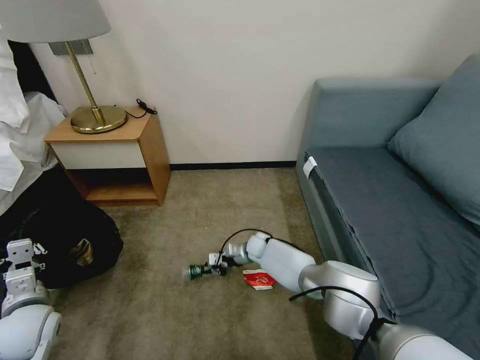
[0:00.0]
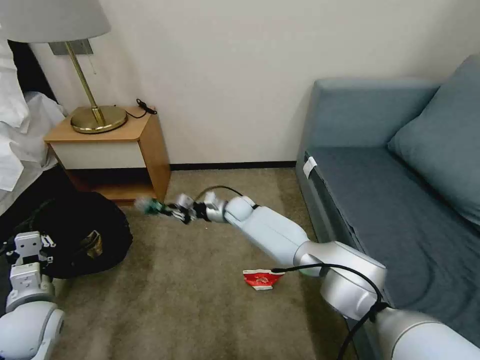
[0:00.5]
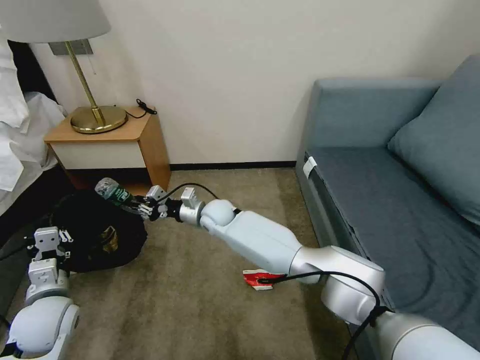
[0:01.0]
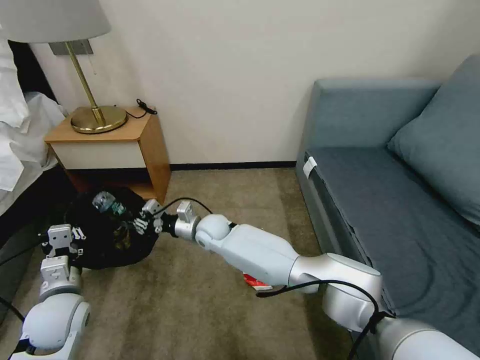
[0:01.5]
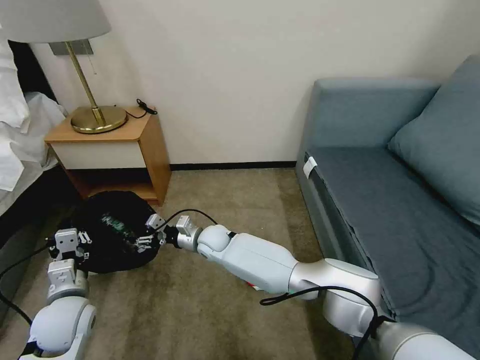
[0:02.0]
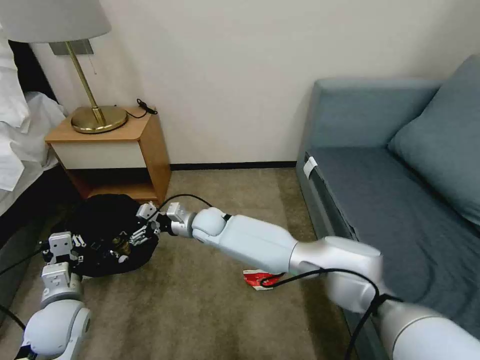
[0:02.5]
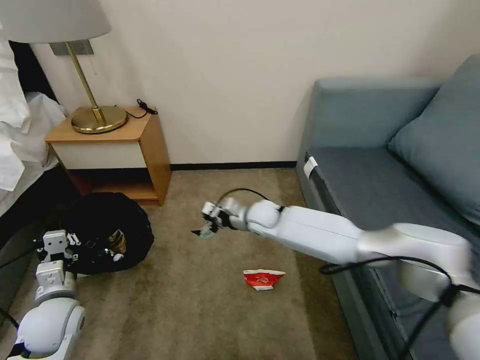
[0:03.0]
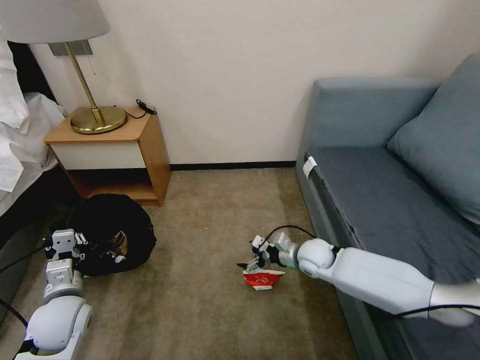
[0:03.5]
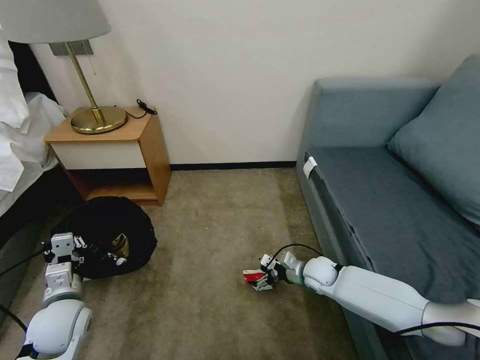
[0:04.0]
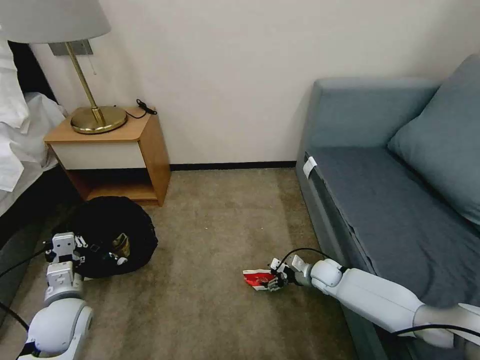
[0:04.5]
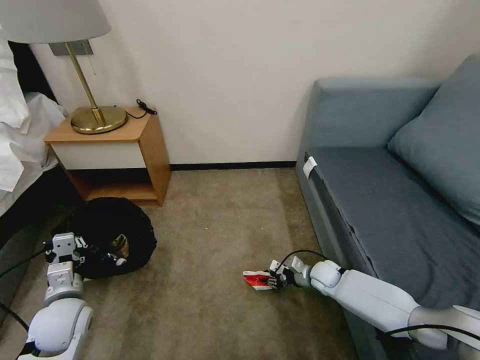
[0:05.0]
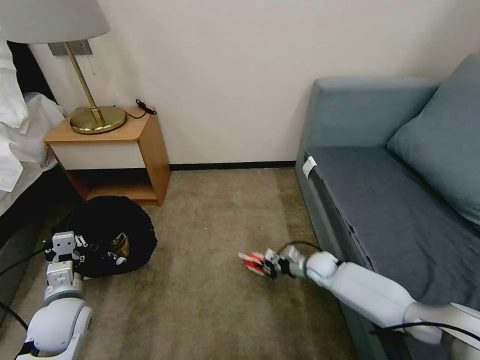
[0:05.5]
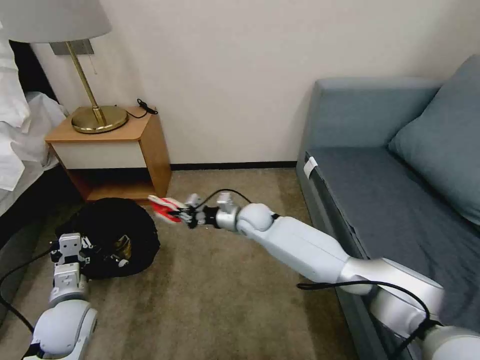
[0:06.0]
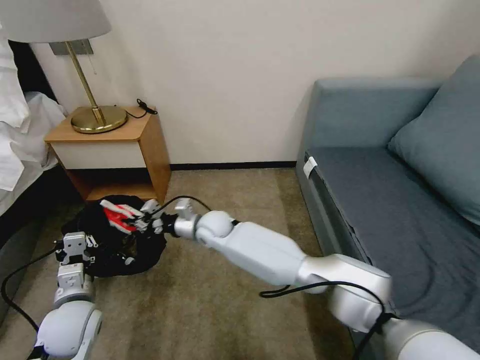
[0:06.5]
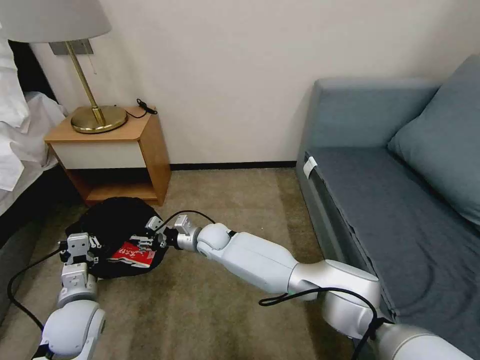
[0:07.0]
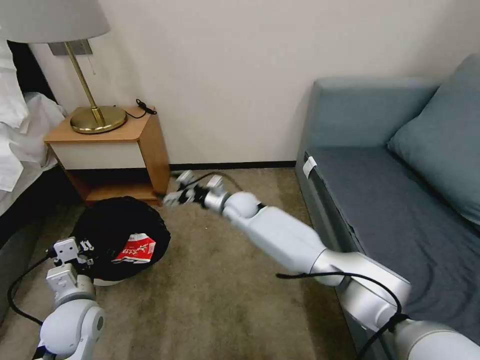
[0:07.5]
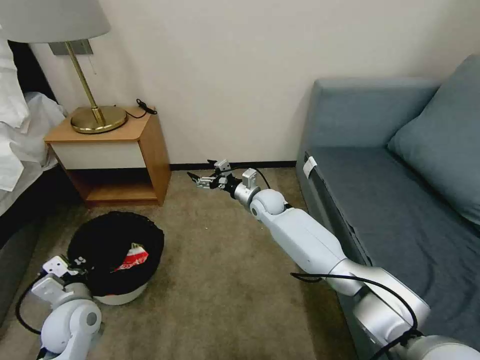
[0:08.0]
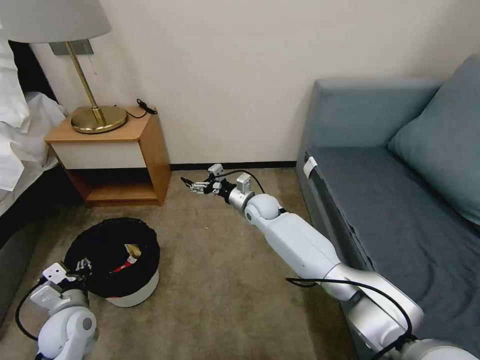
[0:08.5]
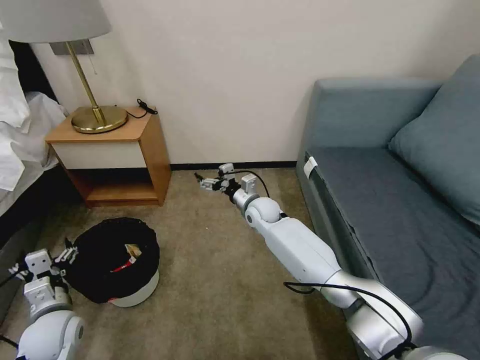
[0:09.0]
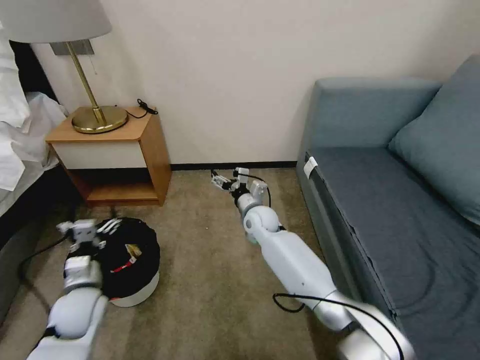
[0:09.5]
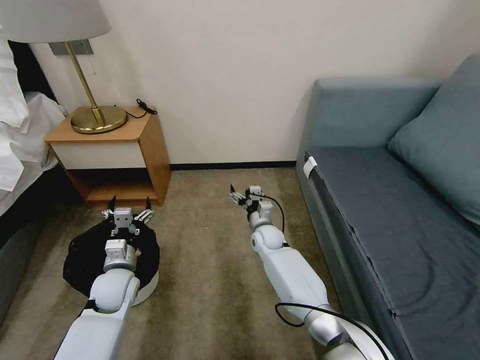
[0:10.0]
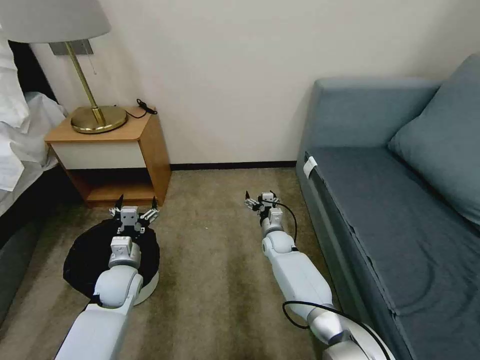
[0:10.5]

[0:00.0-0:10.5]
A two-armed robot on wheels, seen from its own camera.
Task of the whole recording: Pick up the trash bin, then pick up the garbage on the floor and place it into the trash bin.
0:00.0 to 0:02.0: The right gripper moves to the left, upward and backward, some 20 cm, and opens up; the left gripper goes some 5 cm to the right.
0:02.0 to 0:04.0: The right gripper moves to the right, approximately 30 cm, and opens up.
0:04.0 to 0:06.5: The right gripper moves to the left, about 30 cm, and closes its fingers.
0:06.5 to 0:08.5: The right gripper heads to the right and forward, covering about 15 cm, and opens its fingers. Meanwhile the left gripper moves downward, some 5 cm, and opens up.
0:08.5 to 0:10.5: The right gripper travels downward and to the right by roughly 15 cm; the left gripper travels forward and to the right by roughly 10 cm, and opens up.

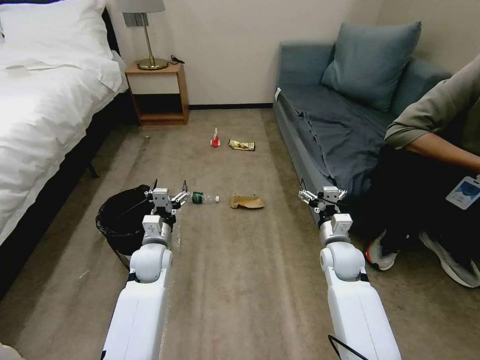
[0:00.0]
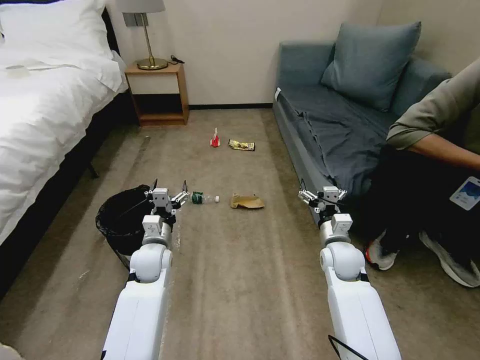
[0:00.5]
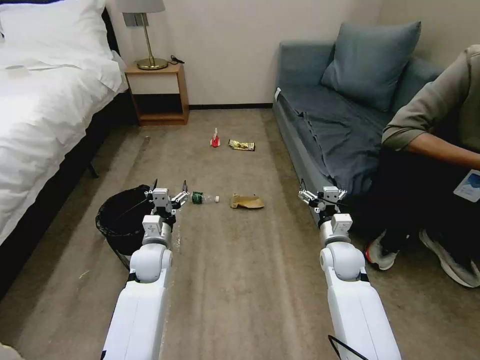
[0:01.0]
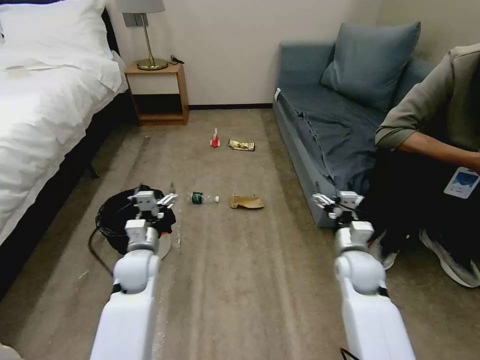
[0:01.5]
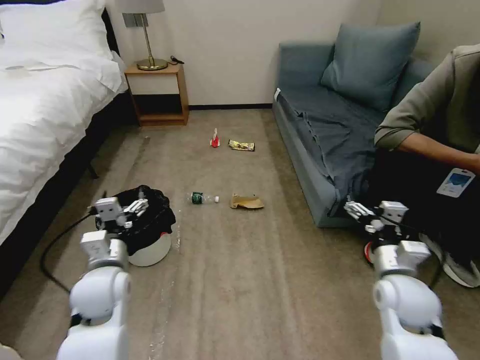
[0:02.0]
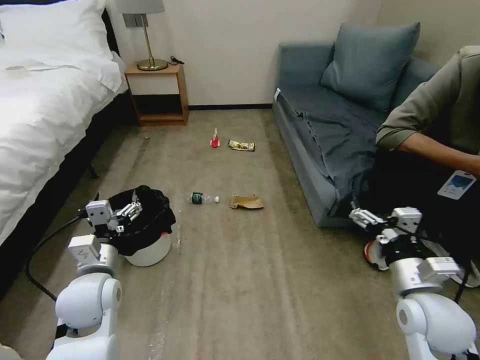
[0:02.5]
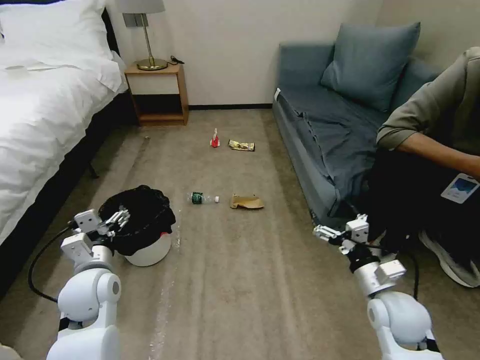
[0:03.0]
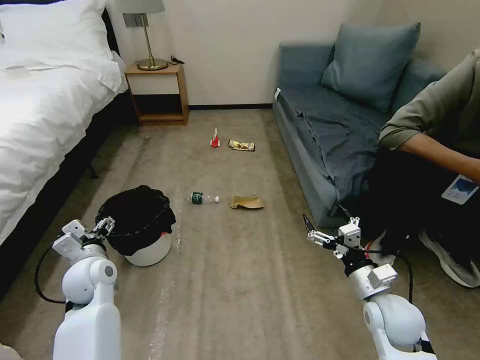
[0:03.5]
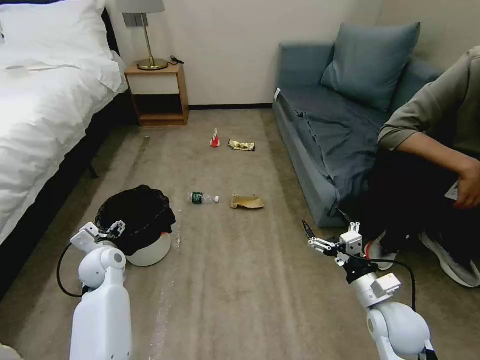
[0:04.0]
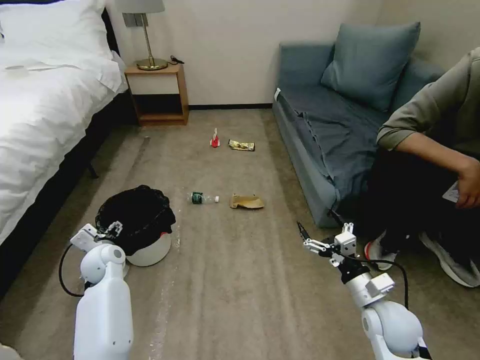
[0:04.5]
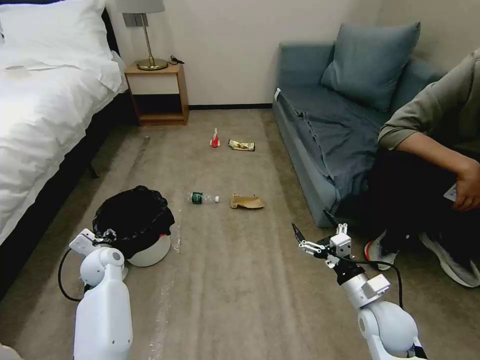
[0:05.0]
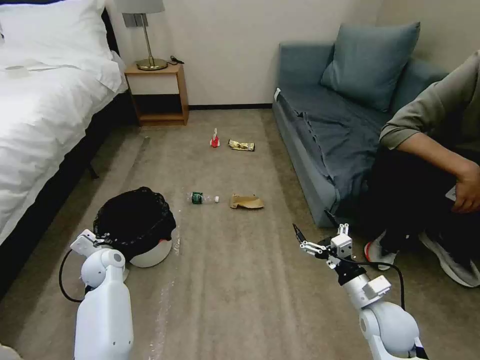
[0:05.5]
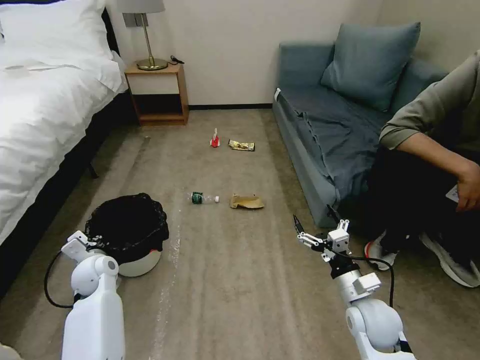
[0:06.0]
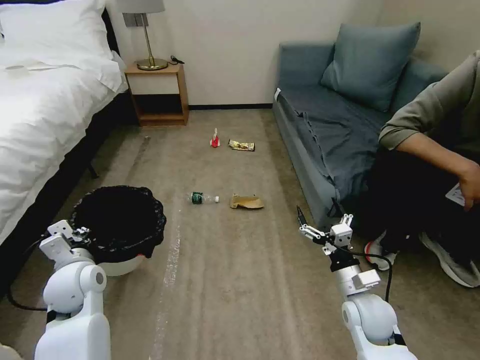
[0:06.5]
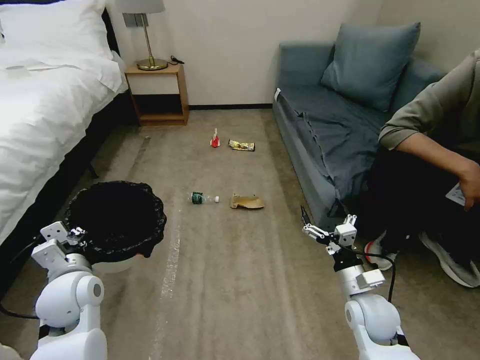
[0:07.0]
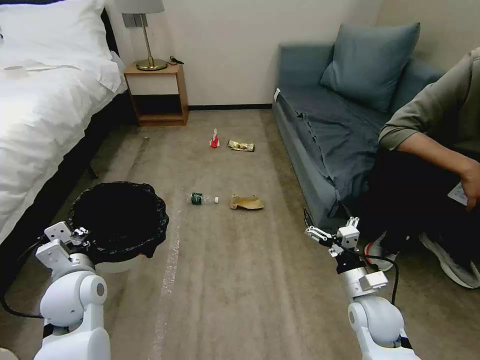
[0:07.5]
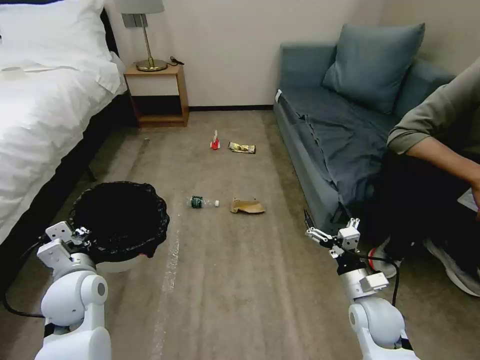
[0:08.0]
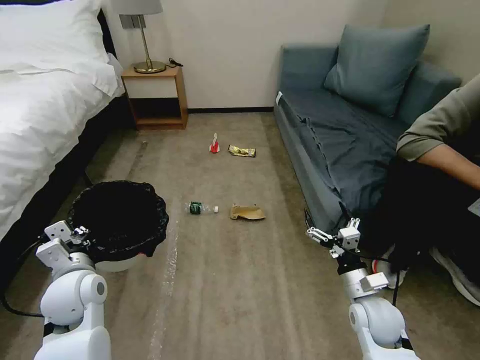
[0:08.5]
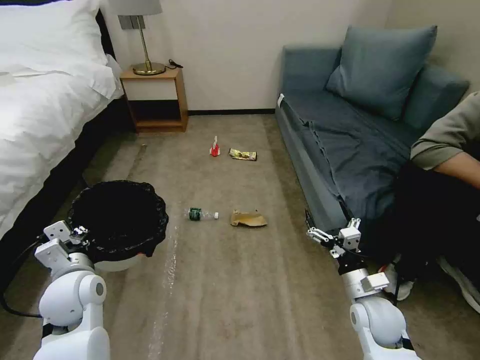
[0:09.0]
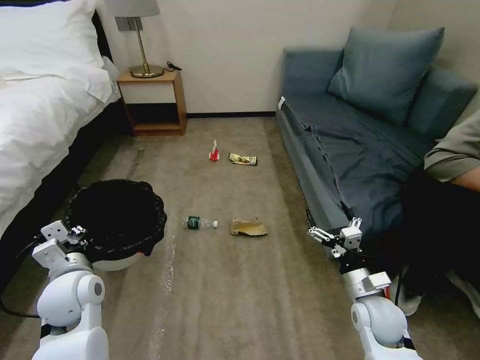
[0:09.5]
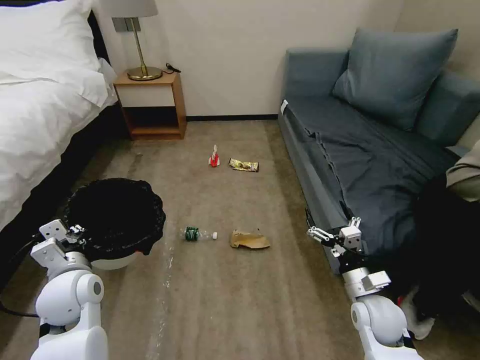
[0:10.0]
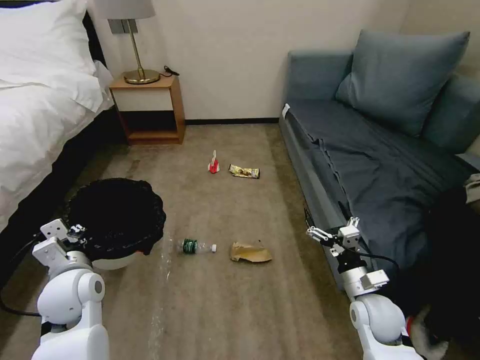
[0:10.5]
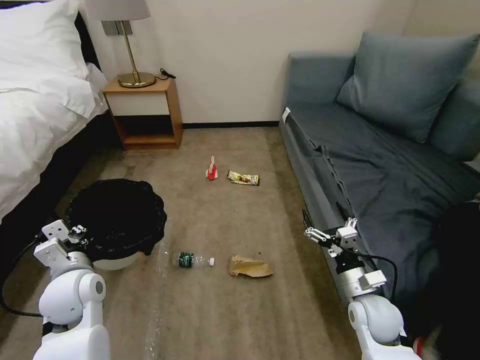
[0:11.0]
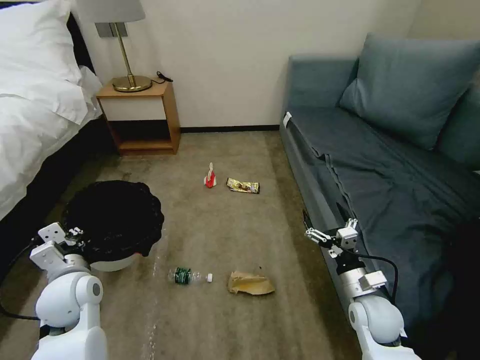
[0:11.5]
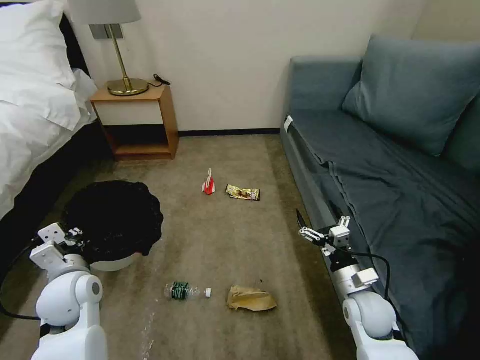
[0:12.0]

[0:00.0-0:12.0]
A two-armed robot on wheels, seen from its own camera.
Task of the whole recording: Pick up the trash bin, then pick up the garbage on the floor and place it into the trash bin.
0:02.0 to 0:04.0: The left gripper heads forward, downward and to the left, covering about 10 cm. Meanwhile the right gripper goes roughly 5 cm downward.
0:04.0 to 0:06.0: The left gripper closes its fingers.
0:06.0 to 0:08.0: The left gripper travels upward and backward by approximately 15 cm.

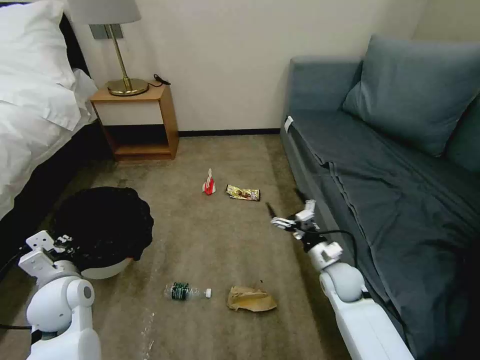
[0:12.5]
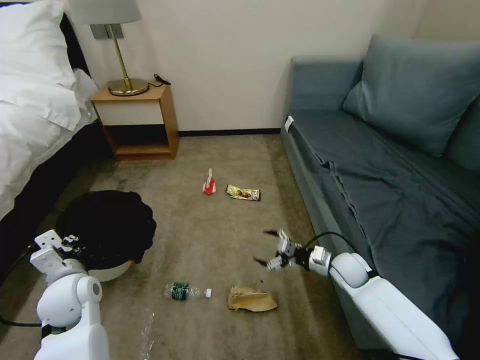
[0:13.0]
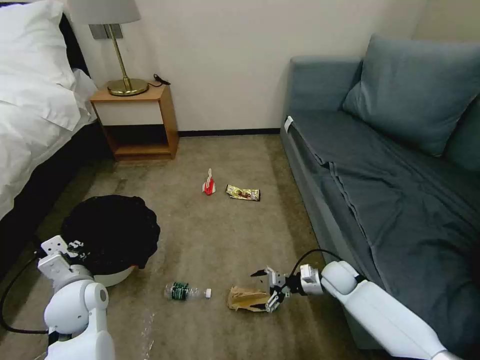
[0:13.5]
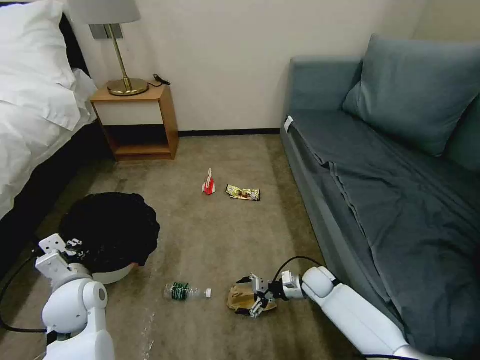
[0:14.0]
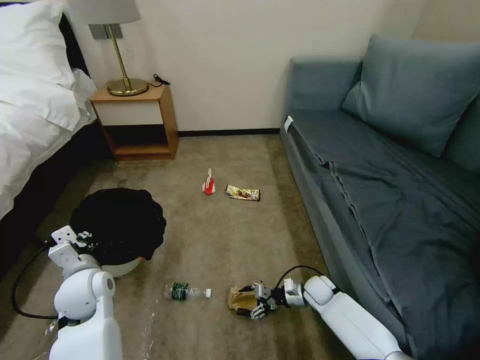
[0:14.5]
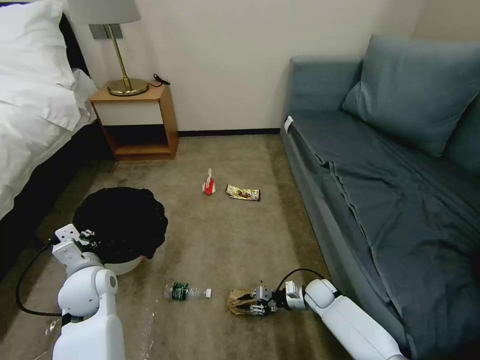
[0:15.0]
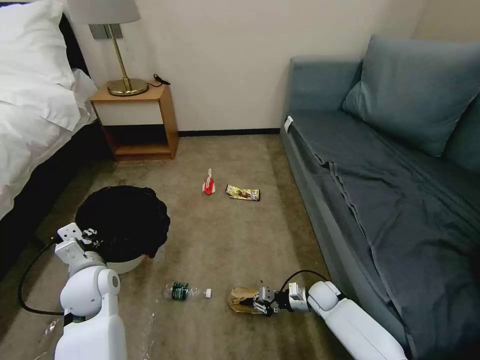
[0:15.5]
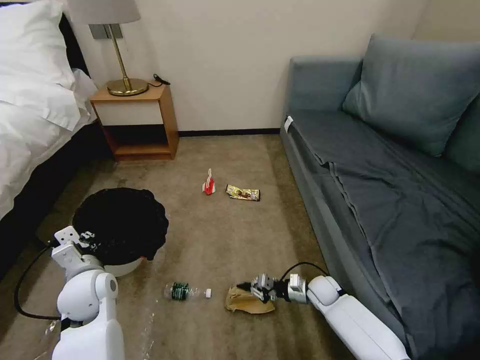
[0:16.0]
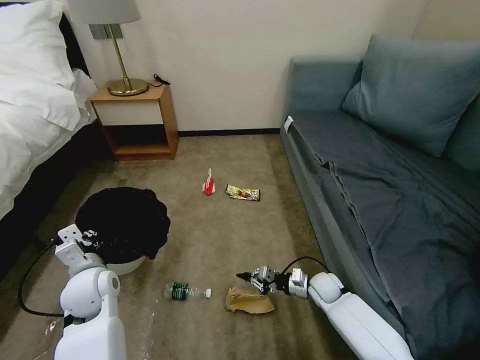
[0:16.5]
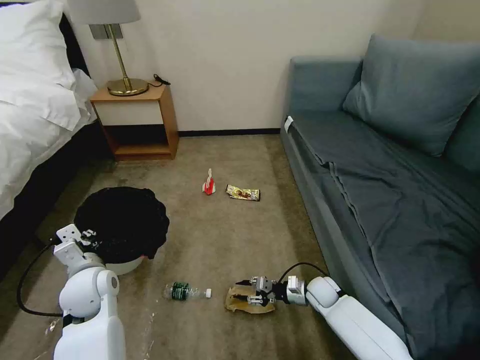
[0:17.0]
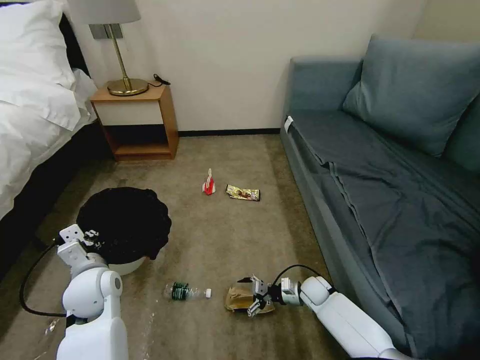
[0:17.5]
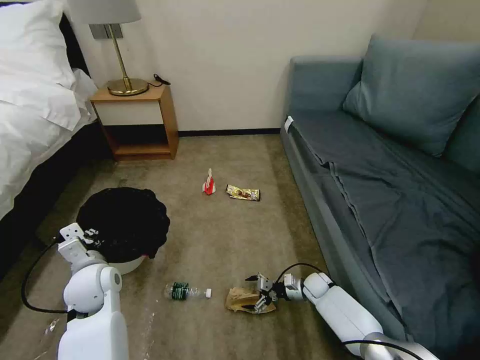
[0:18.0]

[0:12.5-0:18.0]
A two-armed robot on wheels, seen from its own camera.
Task of the whole recording: Pick up the trash bin, then pick up the garbage on the floor and place it into the trash bin.
0:12.5 to 0:14.5: The right gripper travels downward by approximately 15 cm.
0:14.5 to 0:16.0: The right gripper closes up.
0:16.0 to 0:18.0: The right gripper ends up roughly 5 cm from where it was, and opens its fingers.
